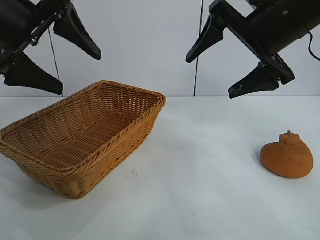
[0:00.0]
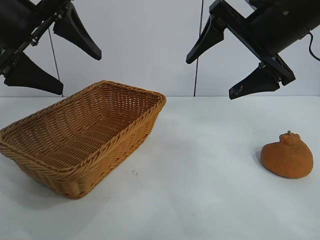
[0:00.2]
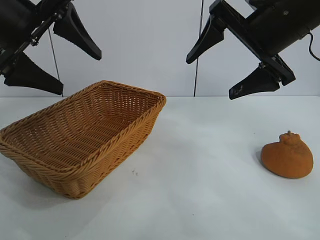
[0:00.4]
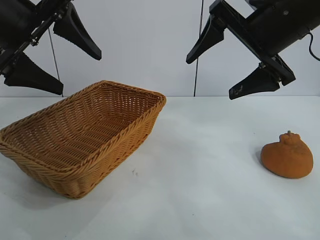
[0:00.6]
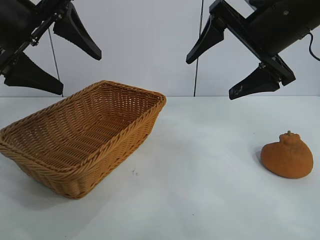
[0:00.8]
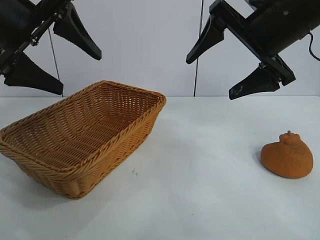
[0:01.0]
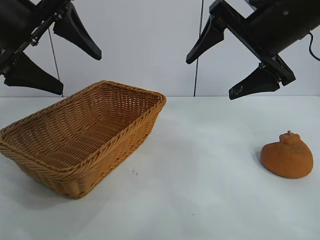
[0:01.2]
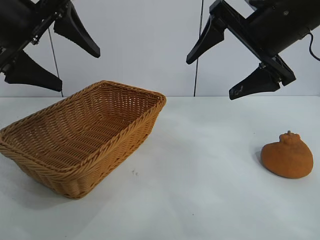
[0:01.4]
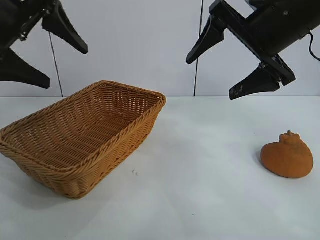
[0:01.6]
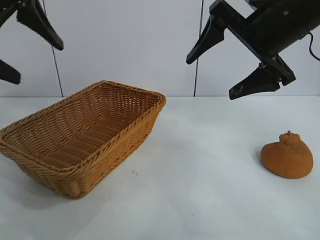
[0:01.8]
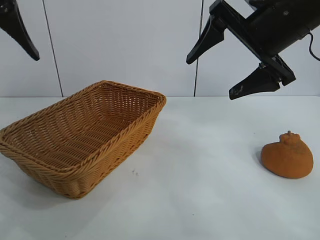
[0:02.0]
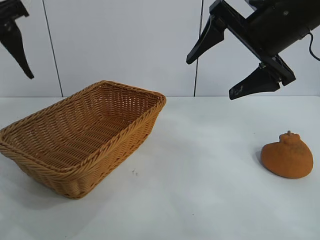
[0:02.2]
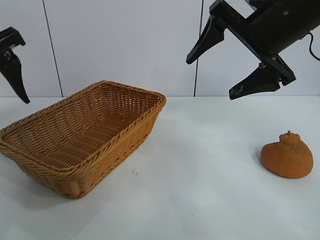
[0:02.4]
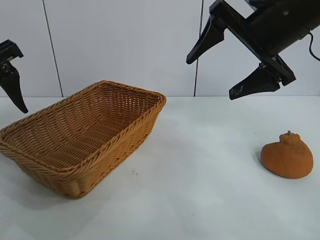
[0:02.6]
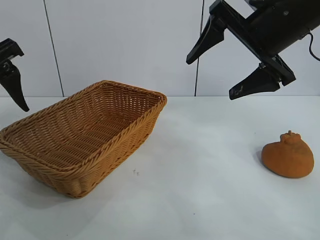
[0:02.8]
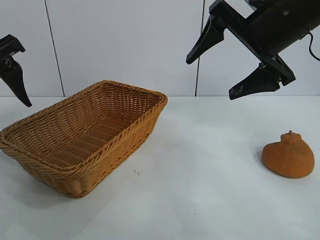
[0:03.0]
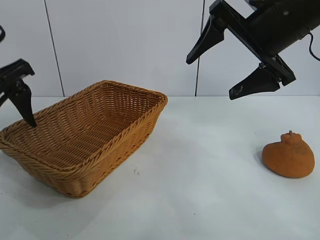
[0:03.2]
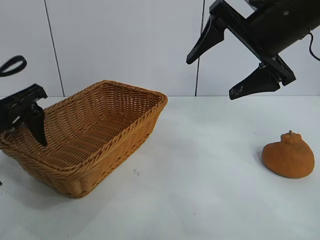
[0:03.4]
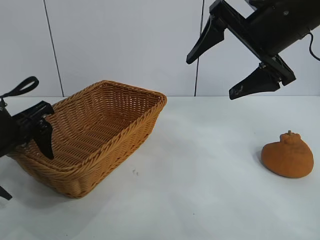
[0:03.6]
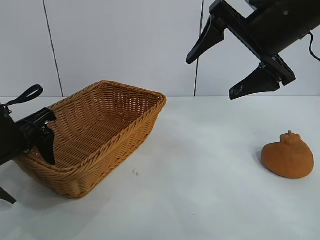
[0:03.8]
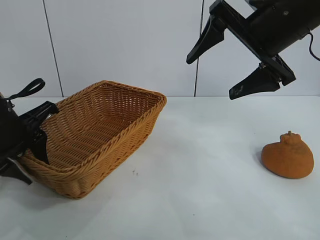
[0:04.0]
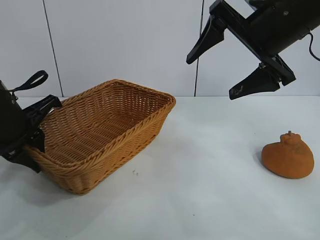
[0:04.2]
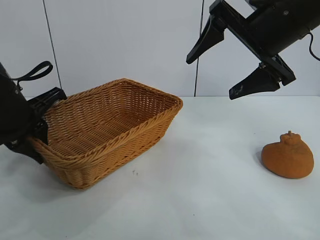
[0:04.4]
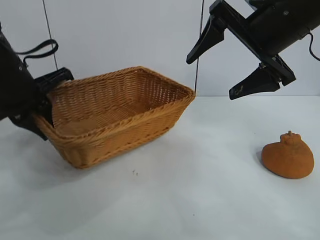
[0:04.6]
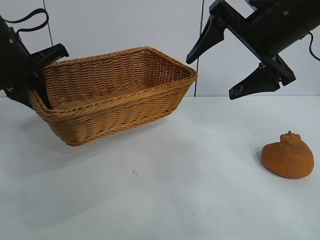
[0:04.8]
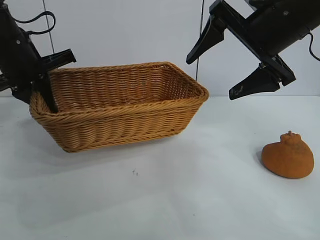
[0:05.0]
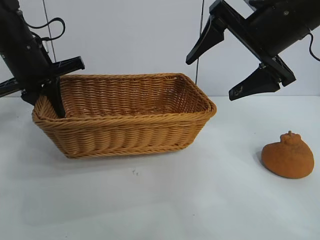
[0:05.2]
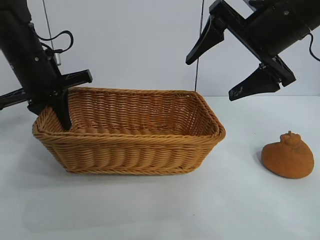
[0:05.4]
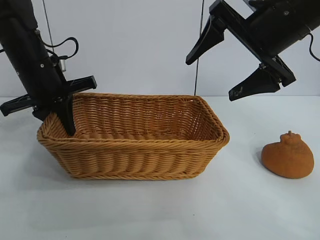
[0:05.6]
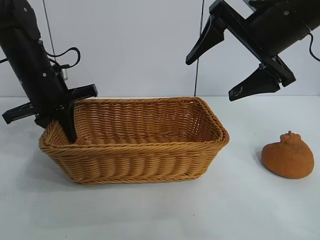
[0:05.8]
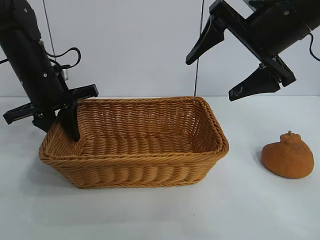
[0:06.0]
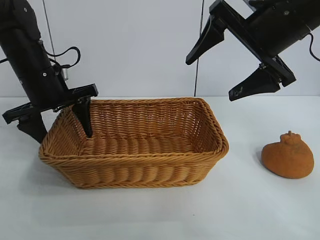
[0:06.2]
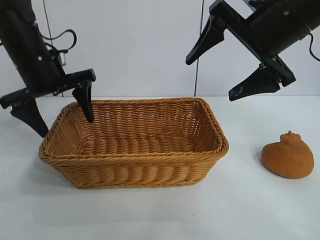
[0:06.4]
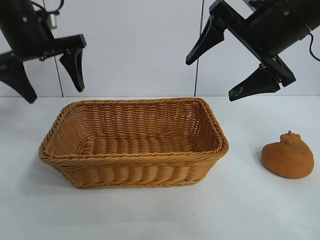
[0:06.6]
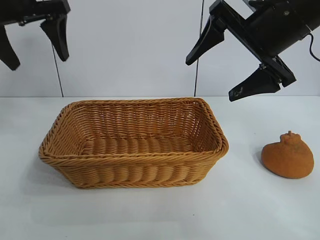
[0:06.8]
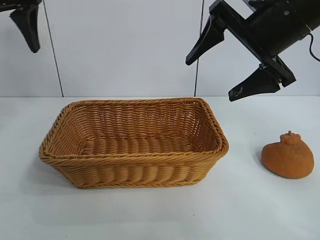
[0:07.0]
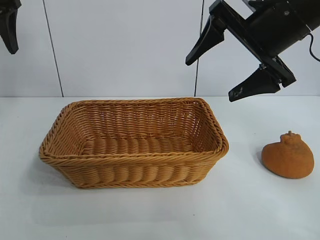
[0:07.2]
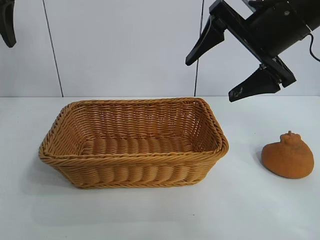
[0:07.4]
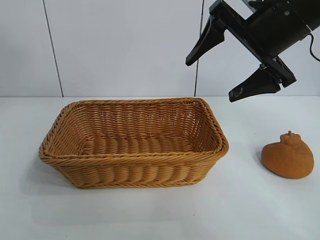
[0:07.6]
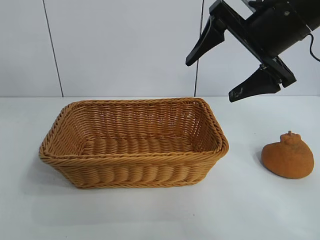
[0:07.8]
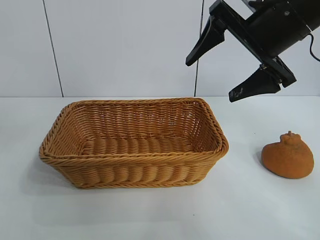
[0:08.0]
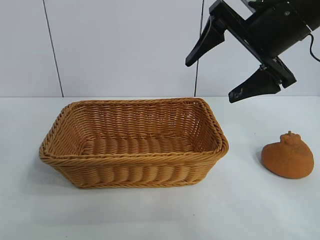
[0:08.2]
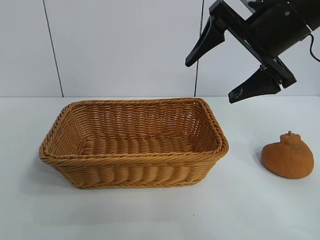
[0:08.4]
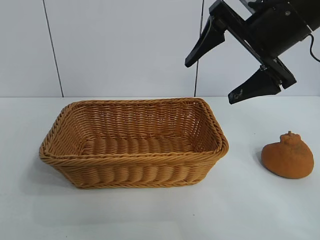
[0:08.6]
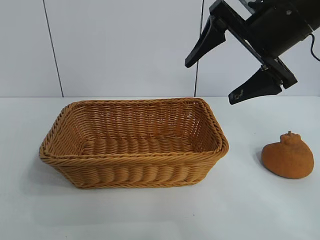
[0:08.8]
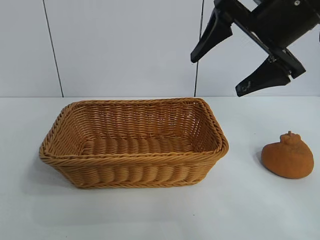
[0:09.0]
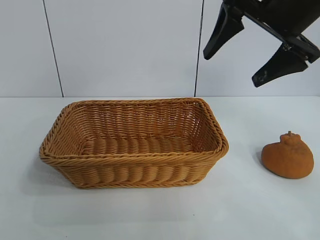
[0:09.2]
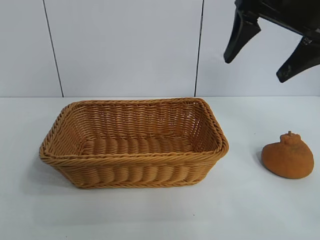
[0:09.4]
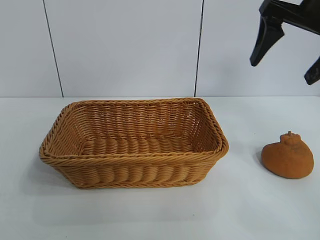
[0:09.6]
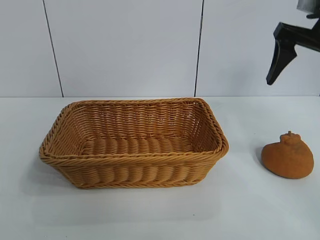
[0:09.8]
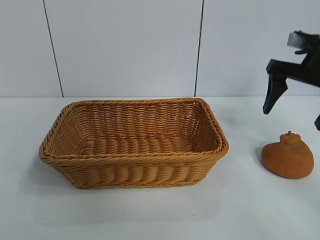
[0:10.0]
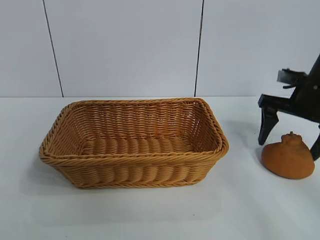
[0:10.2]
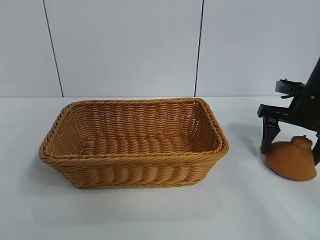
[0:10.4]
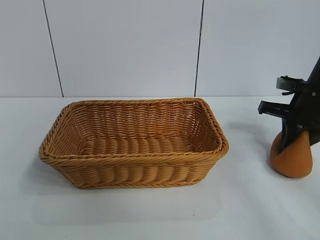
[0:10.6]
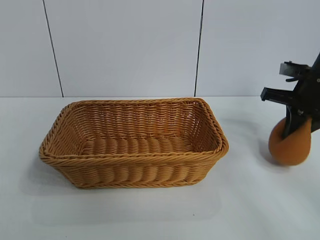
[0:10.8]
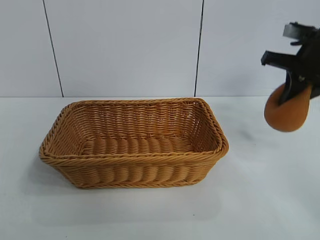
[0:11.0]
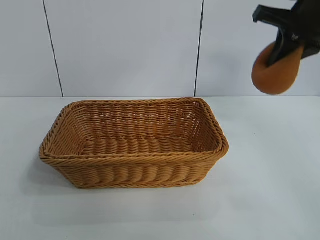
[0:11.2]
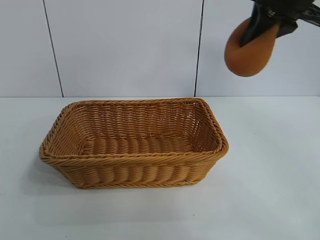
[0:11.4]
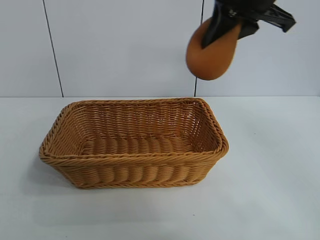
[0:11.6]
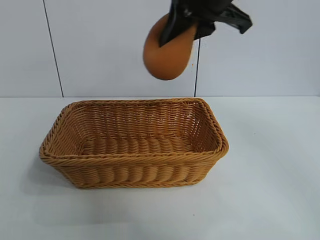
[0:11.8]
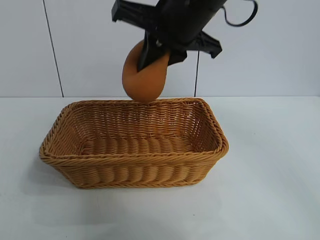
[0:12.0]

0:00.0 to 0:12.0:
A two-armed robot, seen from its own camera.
Task of the whole recording: pick up the orange and put it into the basket.
Step, 0:00.8 to 0:04.0: Grasp the basket with left gripper.
Step, 0:04.2 to 0:06.0: Place the basket in the center of view with left gripper.
Step, 0:06.4 to 0:10.4: Grasp the orange with right gripper.

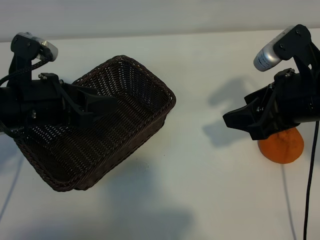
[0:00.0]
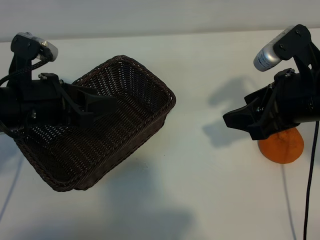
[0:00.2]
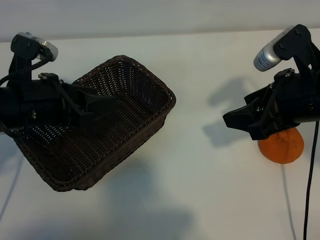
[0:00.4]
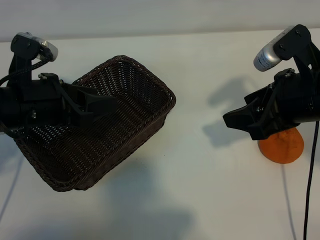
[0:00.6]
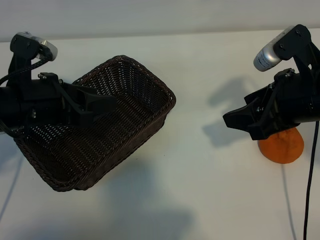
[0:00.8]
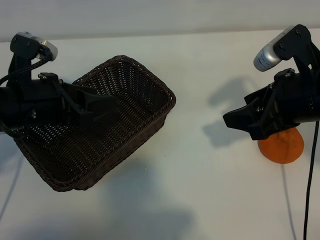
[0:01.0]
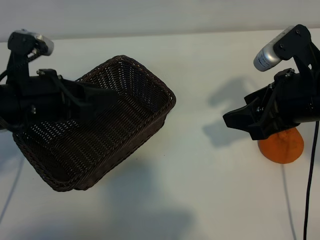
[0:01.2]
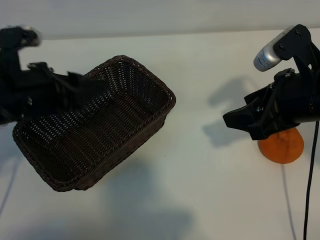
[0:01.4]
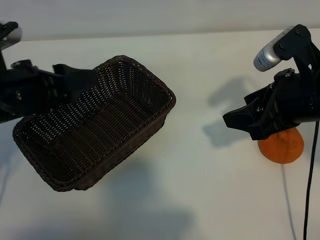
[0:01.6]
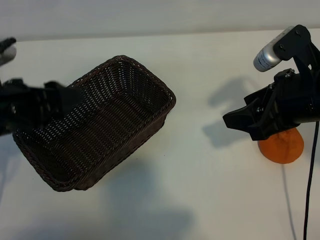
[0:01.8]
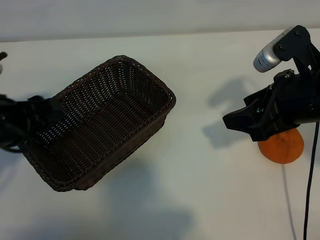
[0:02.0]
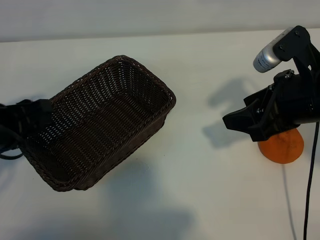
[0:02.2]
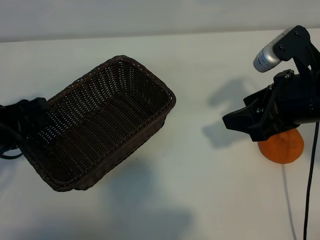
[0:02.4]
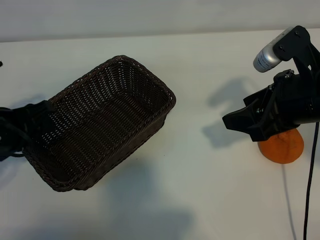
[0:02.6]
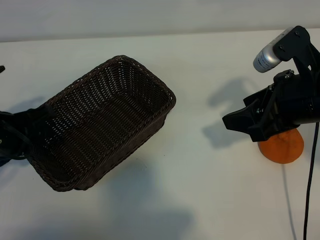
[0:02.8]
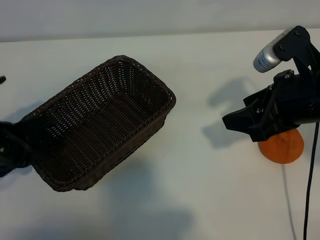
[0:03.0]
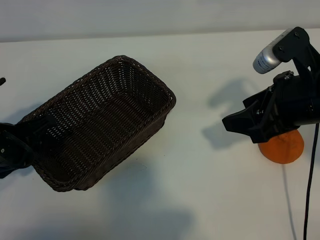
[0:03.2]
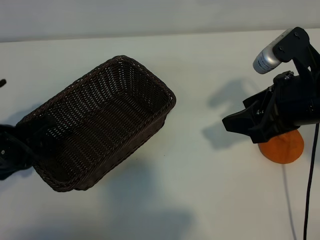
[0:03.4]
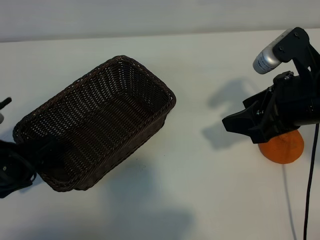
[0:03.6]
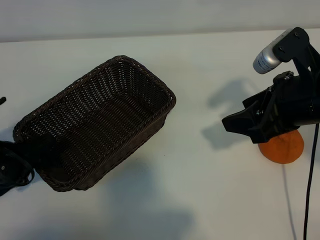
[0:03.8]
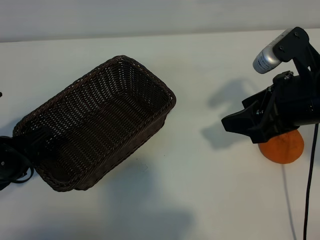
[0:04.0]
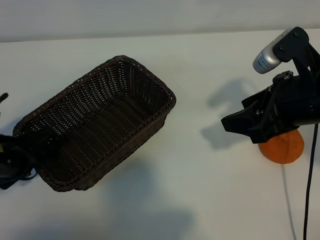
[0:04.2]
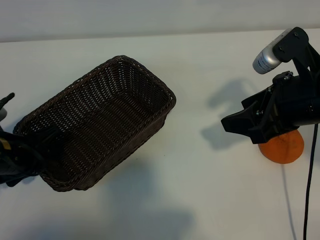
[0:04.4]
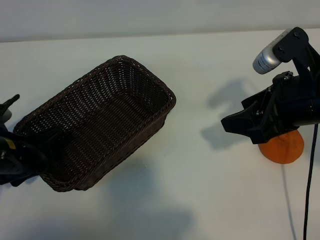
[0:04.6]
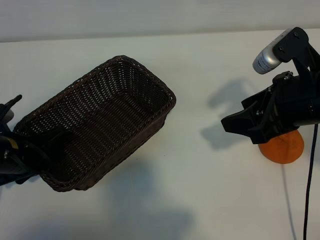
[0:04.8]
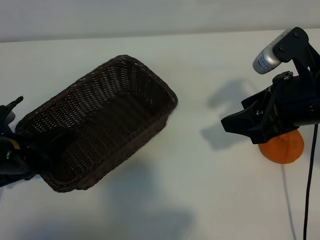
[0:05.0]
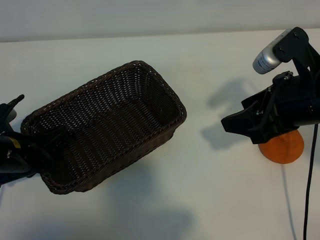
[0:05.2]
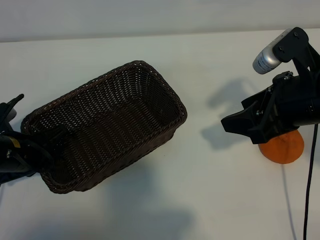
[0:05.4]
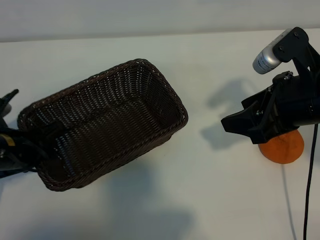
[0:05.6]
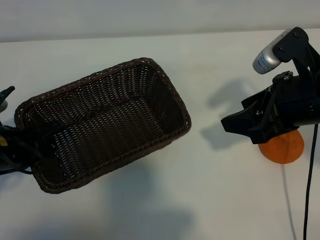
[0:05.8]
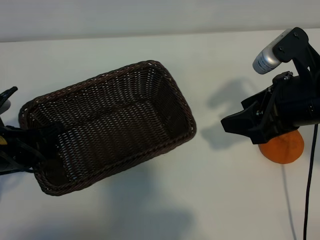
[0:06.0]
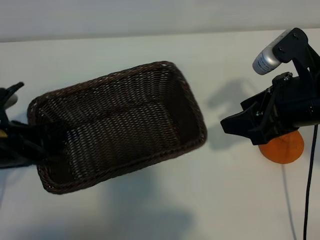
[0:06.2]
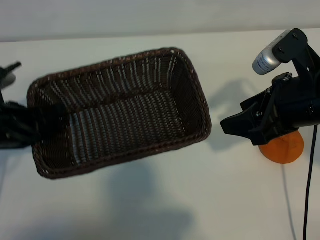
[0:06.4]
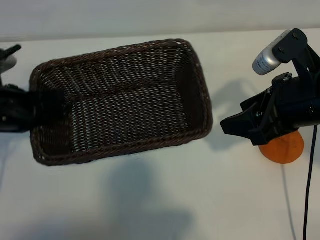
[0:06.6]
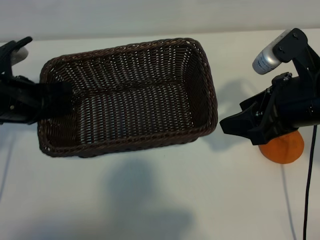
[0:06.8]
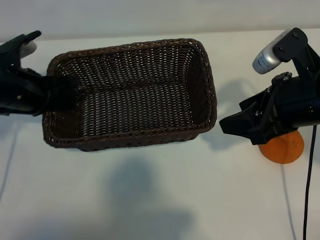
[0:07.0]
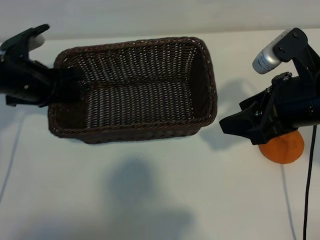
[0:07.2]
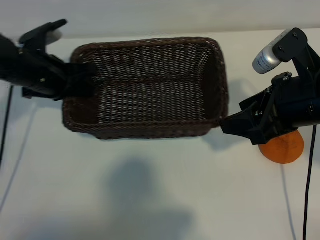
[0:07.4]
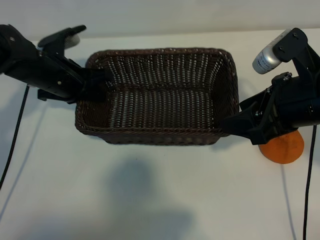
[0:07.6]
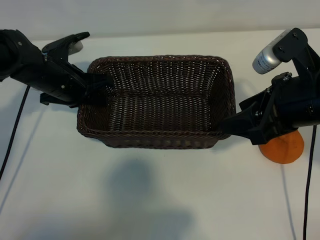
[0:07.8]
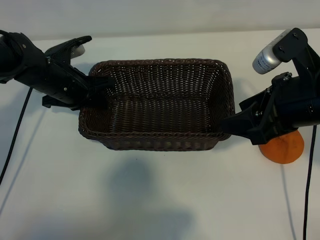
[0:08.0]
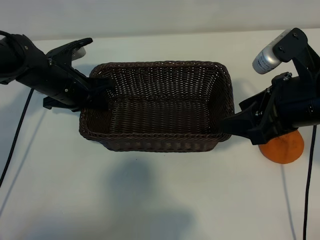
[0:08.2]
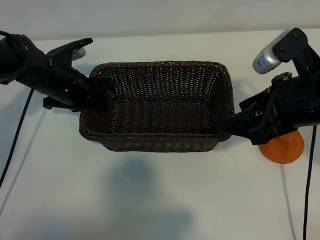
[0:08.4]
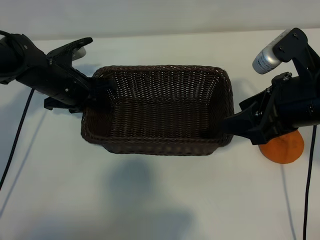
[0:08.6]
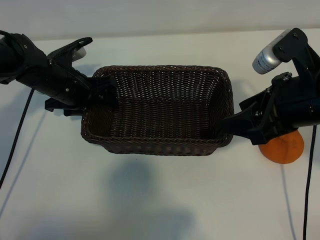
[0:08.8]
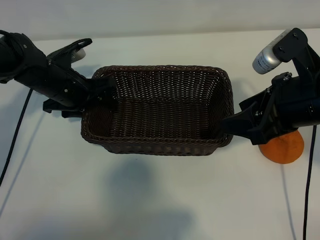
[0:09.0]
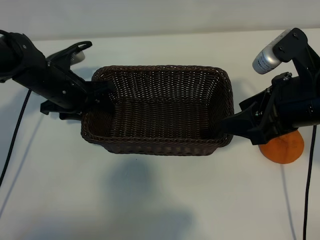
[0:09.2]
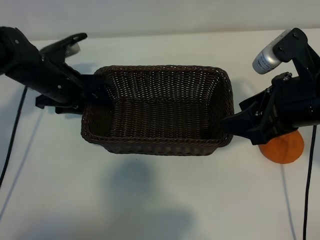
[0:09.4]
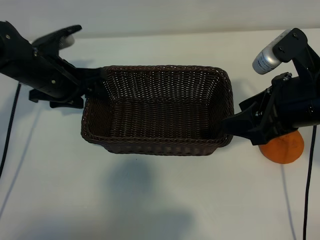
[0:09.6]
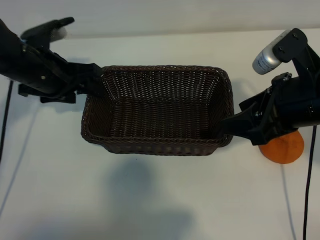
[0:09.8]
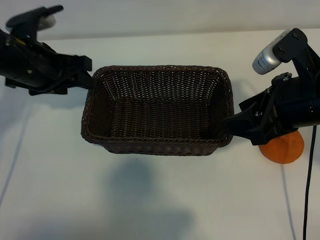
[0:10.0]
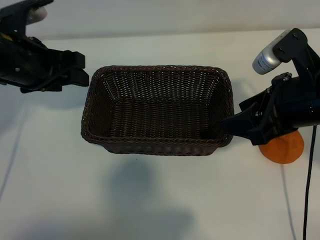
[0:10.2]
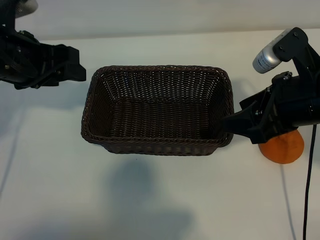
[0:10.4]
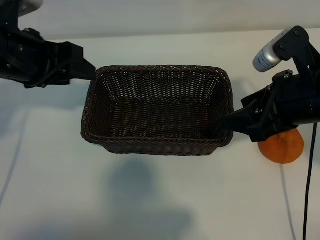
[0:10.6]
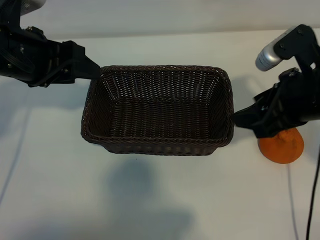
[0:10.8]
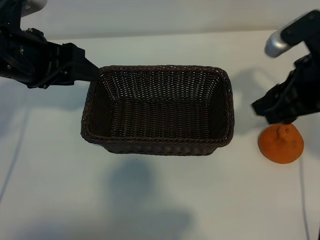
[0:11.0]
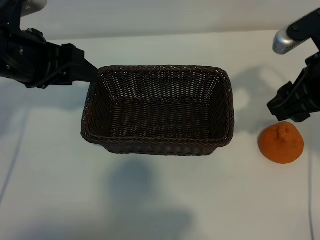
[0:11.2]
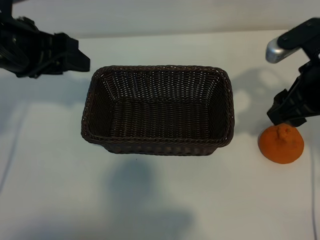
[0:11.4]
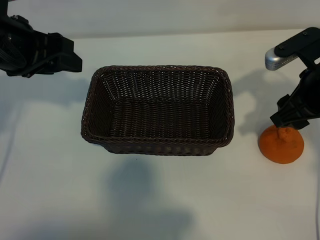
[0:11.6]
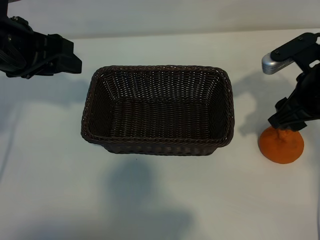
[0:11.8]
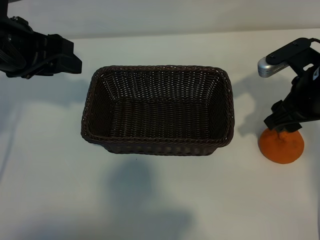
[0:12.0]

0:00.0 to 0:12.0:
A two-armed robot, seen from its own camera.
Task of the whole recording: pick up the orange and put it into the basket.
Step, 0:00.8 to 0:05.0: Grasp the basket with left gripper.
Step, 0:05.4 to 0:08.8: Place the basket in the center of view with left gripper.
